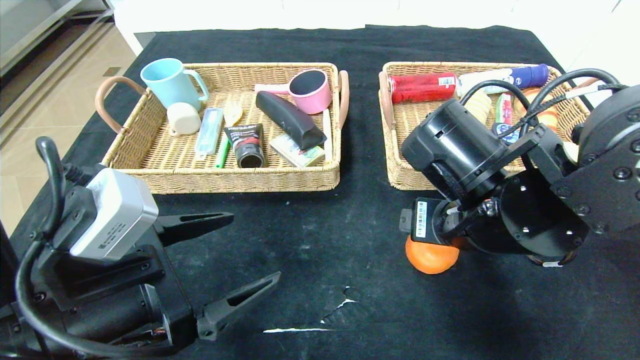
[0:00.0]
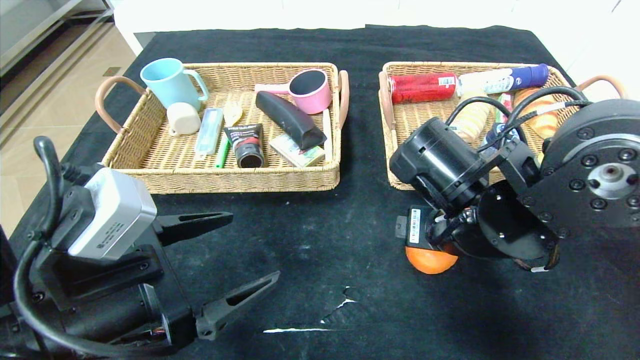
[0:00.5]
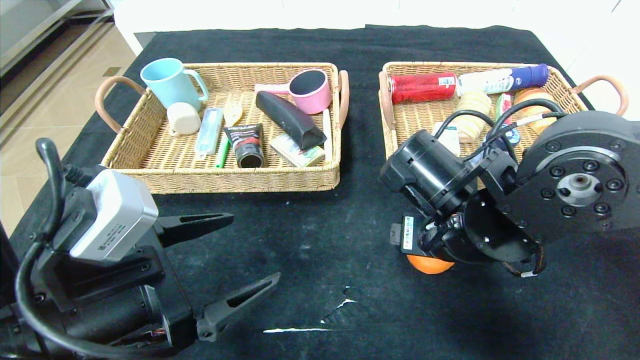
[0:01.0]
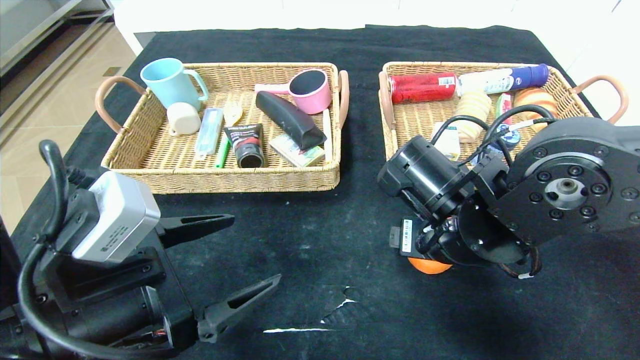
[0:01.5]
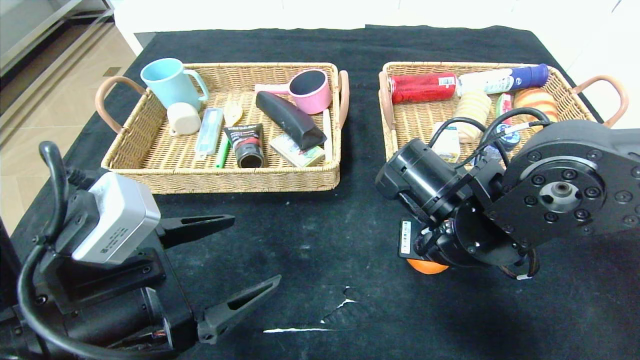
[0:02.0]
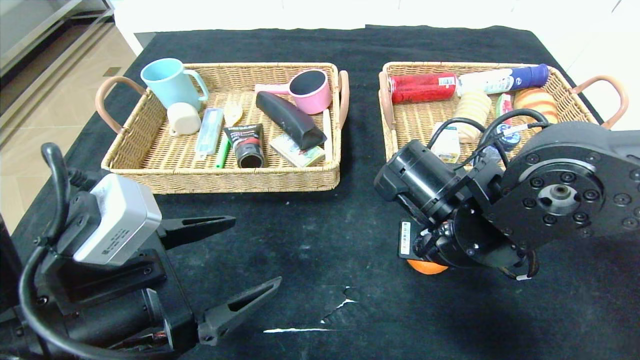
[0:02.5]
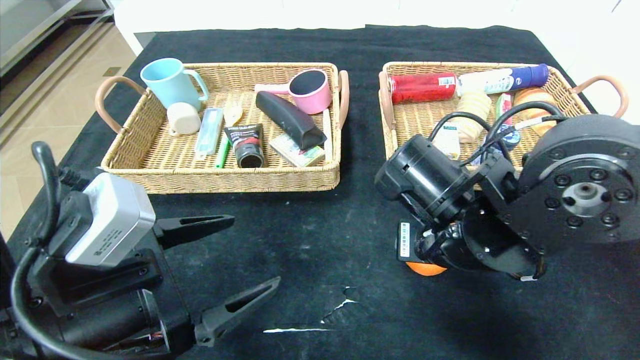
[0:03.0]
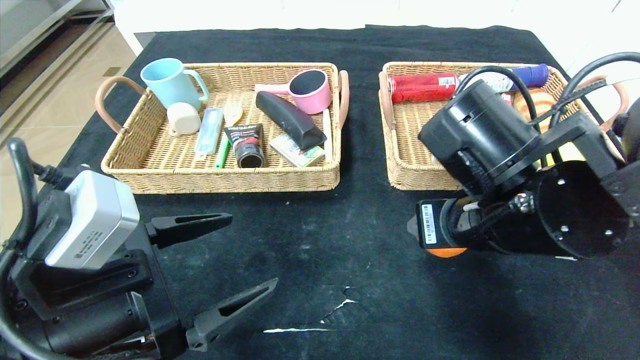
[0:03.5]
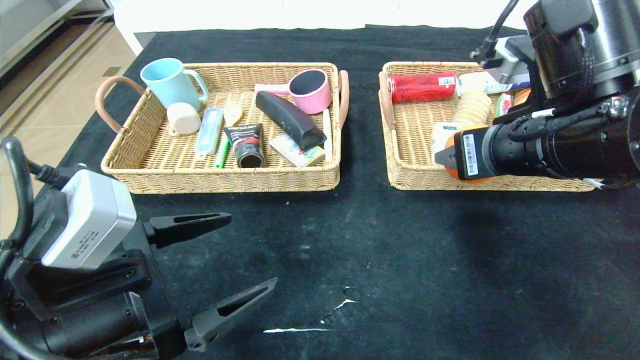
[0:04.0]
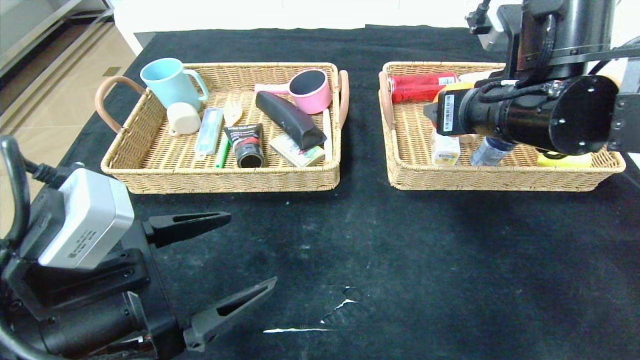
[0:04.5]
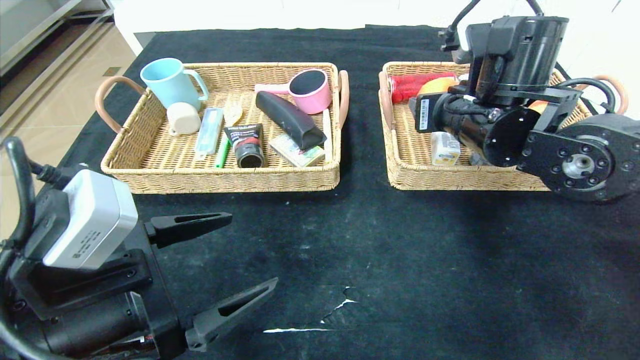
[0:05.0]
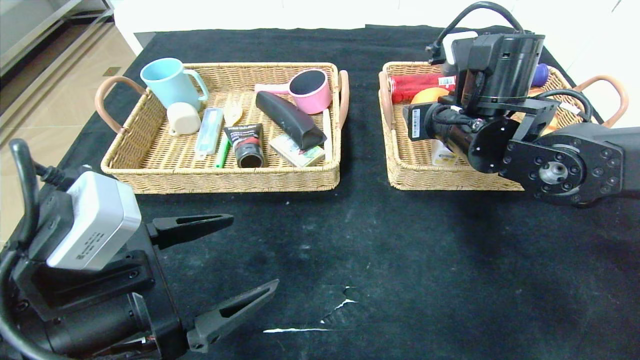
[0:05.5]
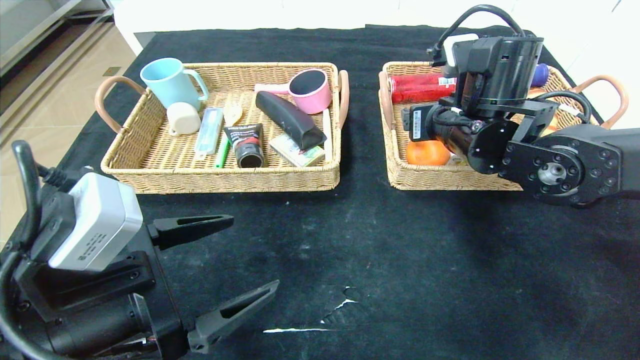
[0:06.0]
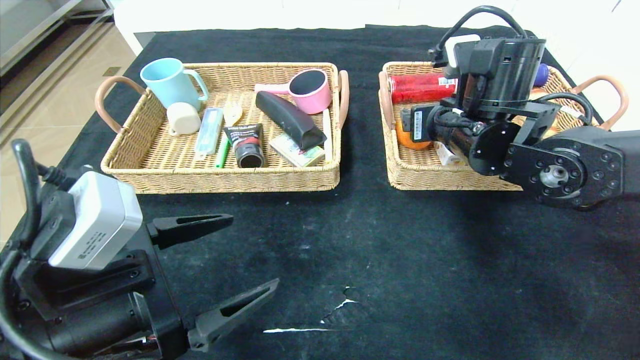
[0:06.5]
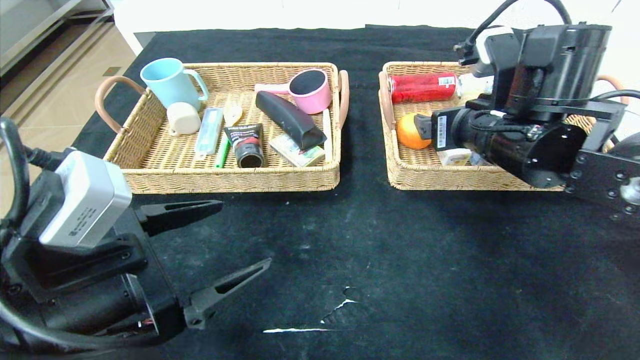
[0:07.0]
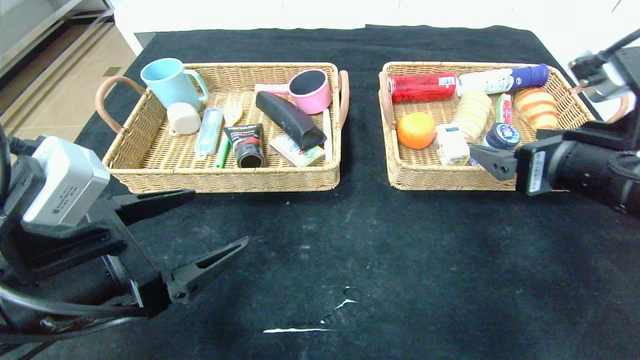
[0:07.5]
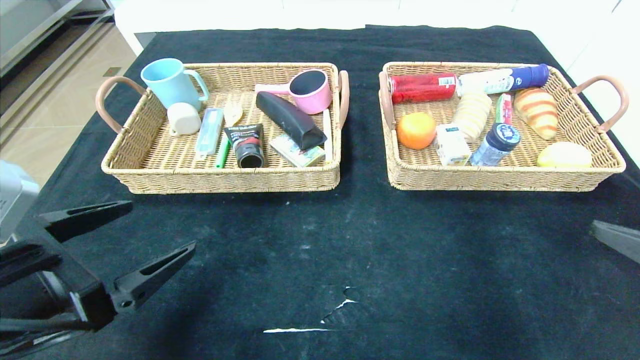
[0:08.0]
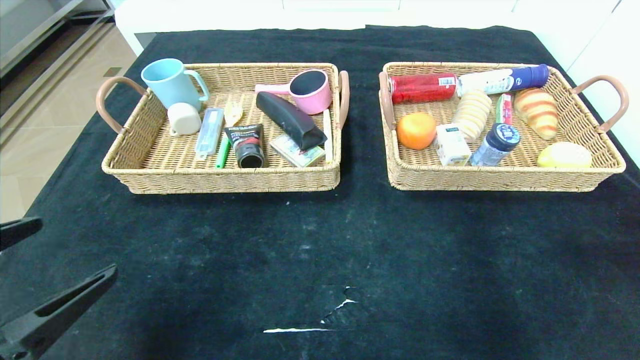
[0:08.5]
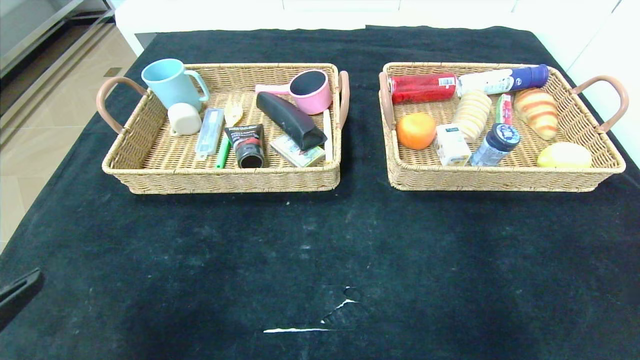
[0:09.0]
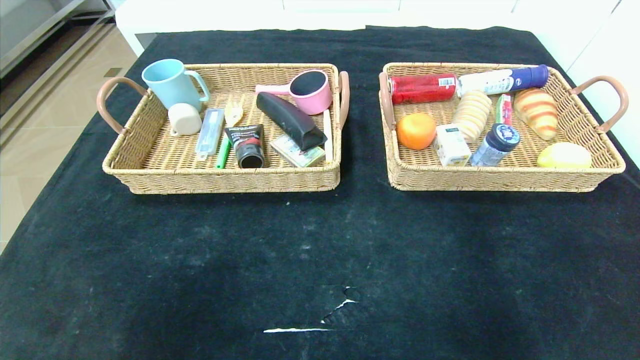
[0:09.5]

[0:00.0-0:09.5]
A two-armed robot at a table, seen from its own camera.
Step, 0:00.0 to 0:07.5: Pick up the orange and put it in the right basket.
0:00.0 to 0:02.0: The grippers move only a little.
0:02.0 to 0:04.0: The right gripper shifts approximately 10 cm upward and to the right.
0:04.0 to 0:05.5: The right gripper heads forward, covering approximately 10 cm.
0:05.5 to 0:07.5: The right gripper goes some 15 cm backward and to the right.
0:07.5 to 0:09.5: The right gripper is displaced backward by roughly 25 cm; the left gripper is displaced backward and to the left by approximately 20 cm.
